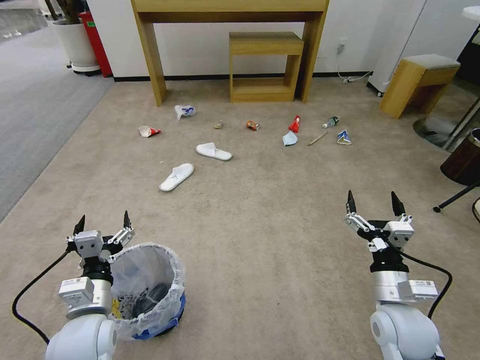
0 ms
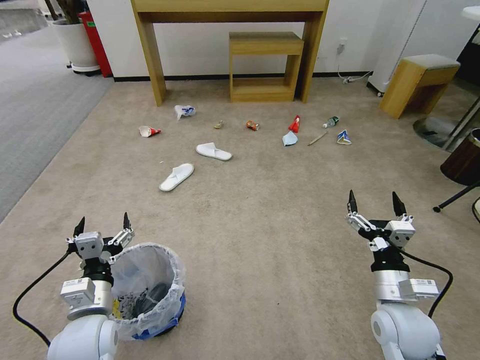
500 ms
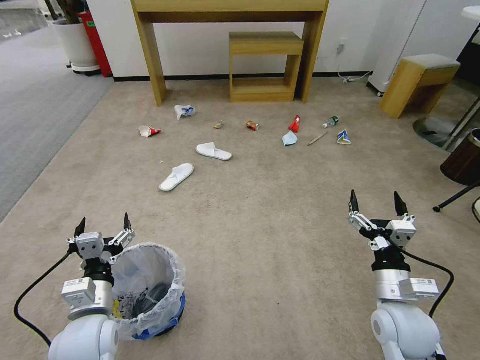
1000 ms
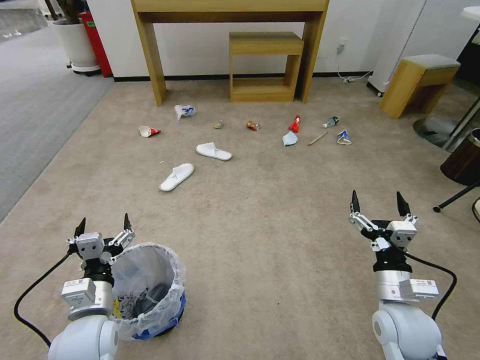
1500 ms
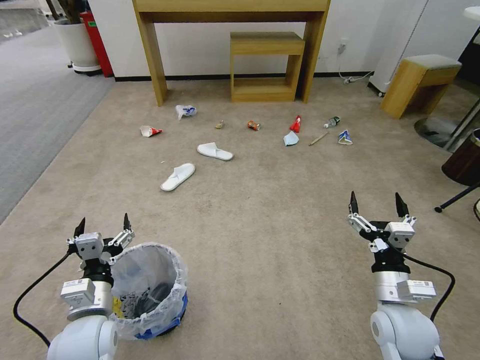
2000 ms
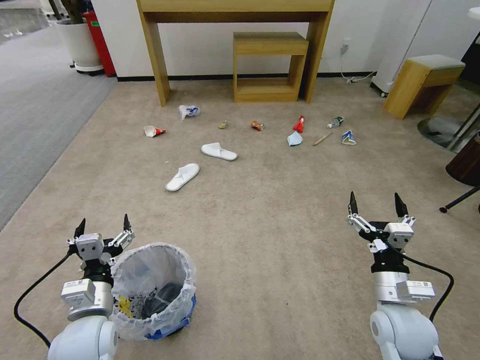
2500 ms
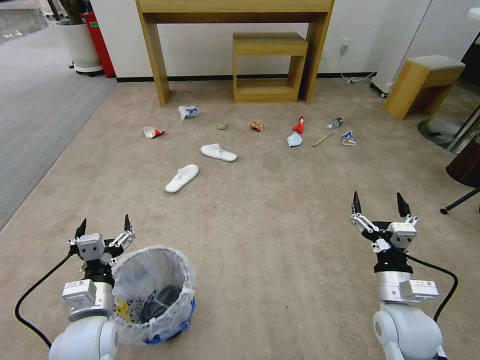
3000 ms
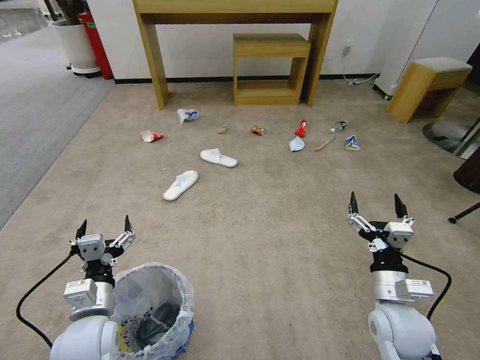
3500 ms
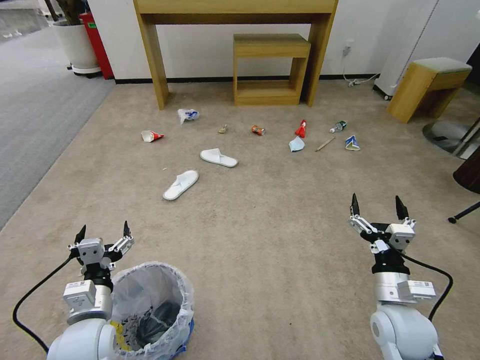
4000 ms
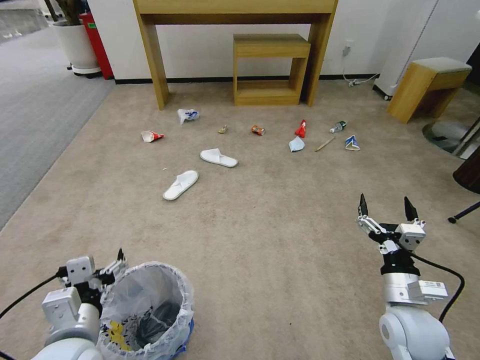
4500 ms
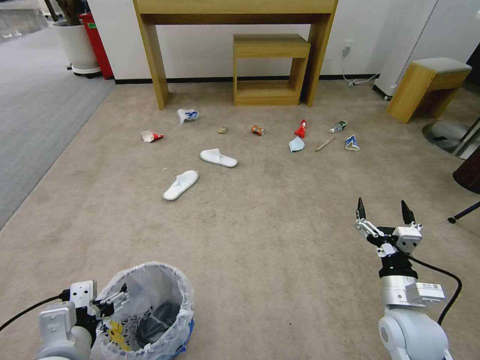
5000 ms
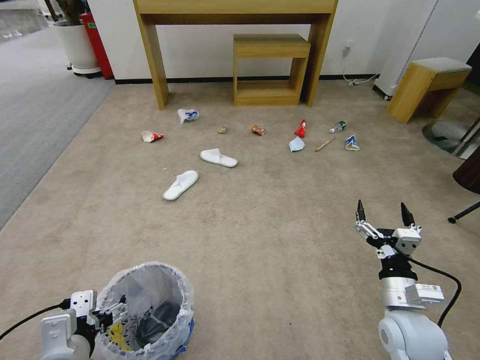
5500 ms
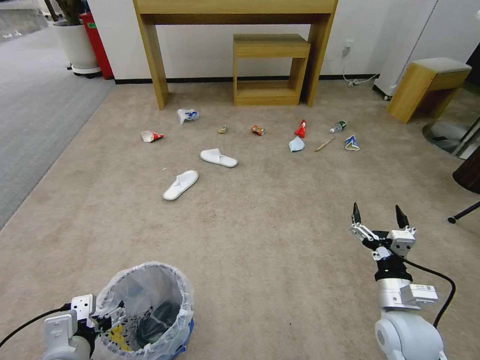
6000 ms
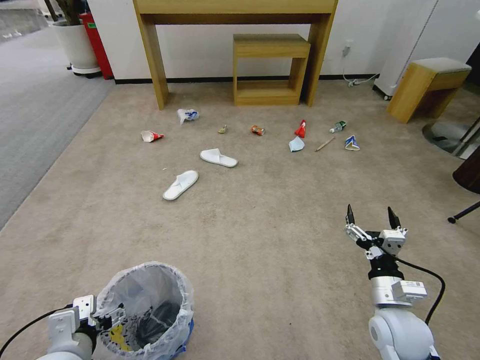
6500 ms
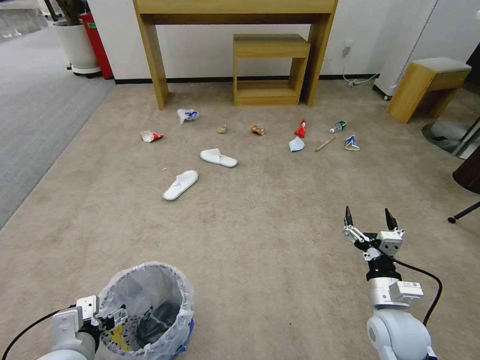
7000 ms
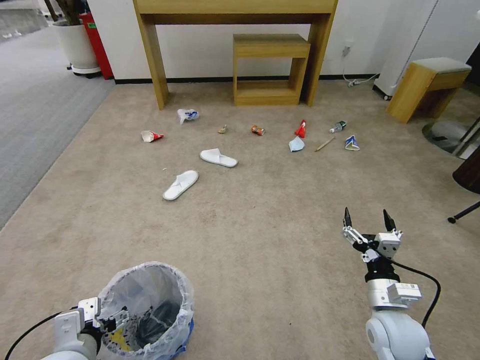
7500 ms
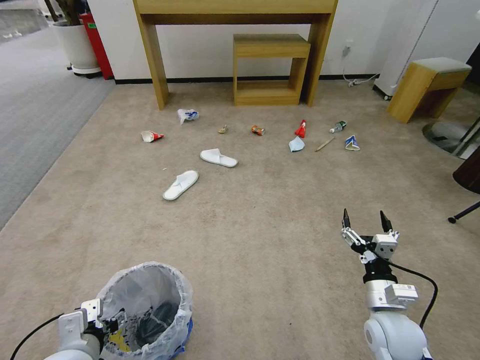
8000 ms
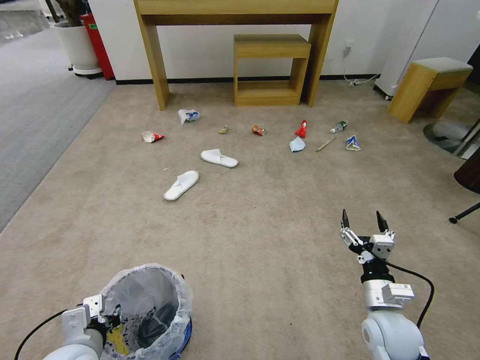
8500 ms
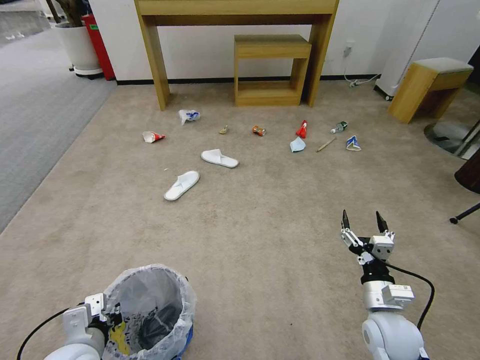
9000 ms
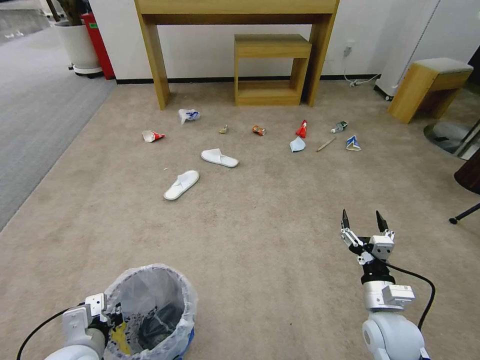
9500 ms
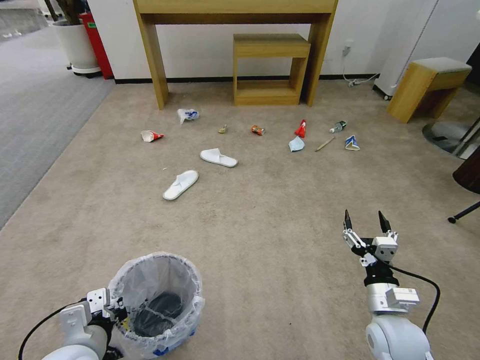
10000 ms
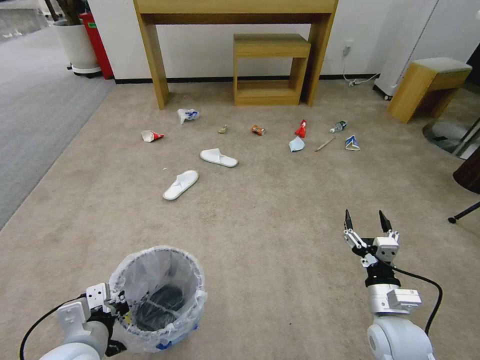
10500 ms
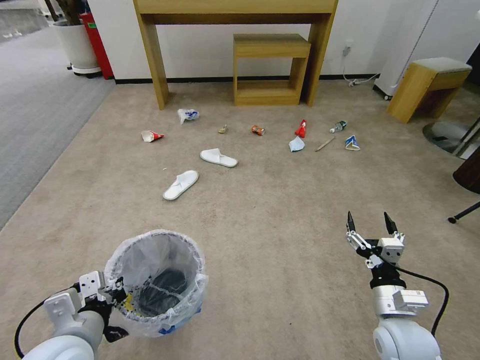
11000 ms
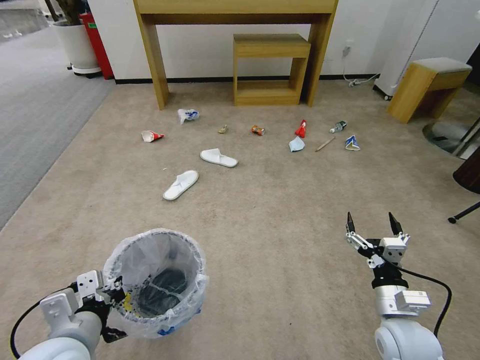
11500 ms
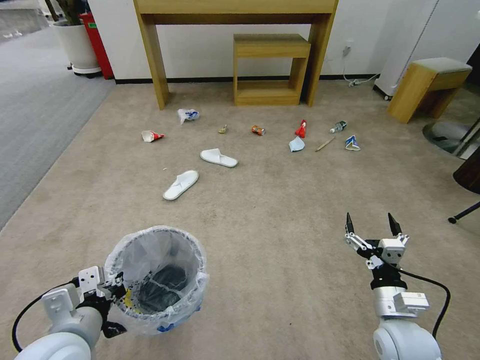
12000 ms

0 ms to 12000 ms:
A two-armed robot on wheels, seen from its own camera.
Task of the whole recording: Pick up the trash bin and place the garbage on the floor into it.
2000 ms to 4000 ms: The grippers stay close to where they were, moving slightly.
4000 ms to 6000 ms: The left gripper goes approximately 5 cm backward.
6000 ms to 8000 ms: The grippers move only a little.
8000 ms to 10000 ms: The left gripper closes.
10000 ms to 12000 ms: The left gripper travels upward by some 5 cm.

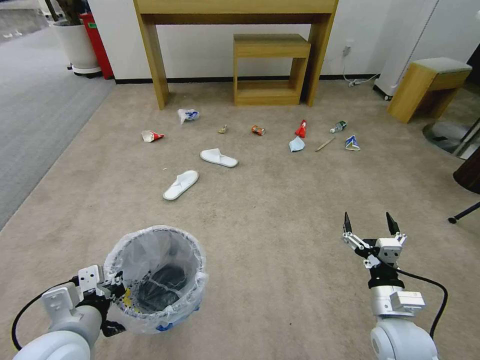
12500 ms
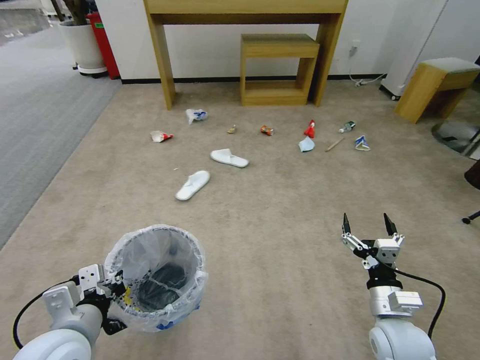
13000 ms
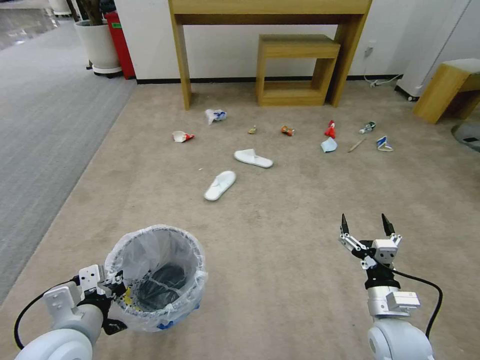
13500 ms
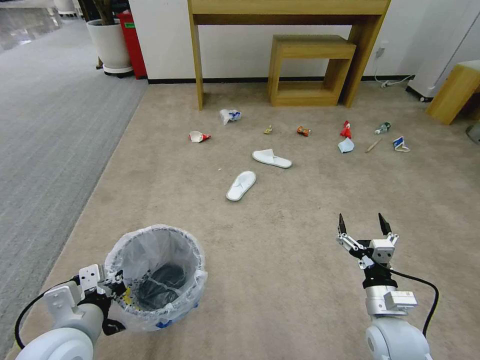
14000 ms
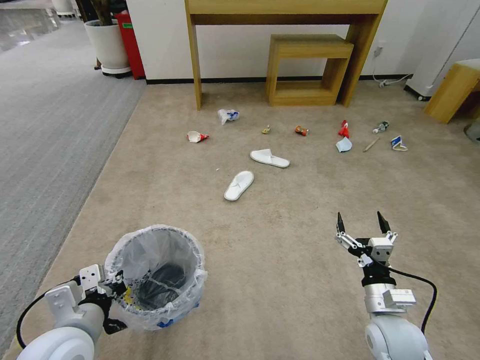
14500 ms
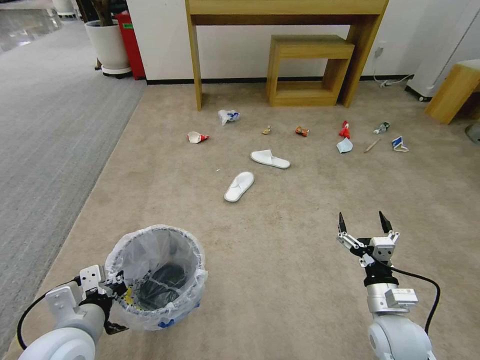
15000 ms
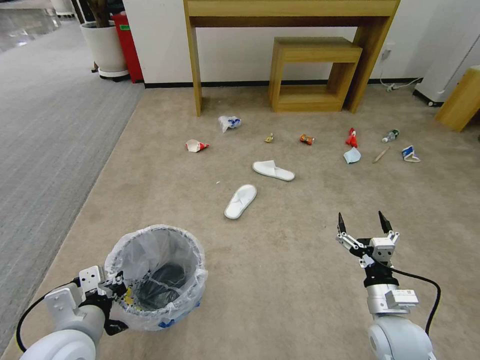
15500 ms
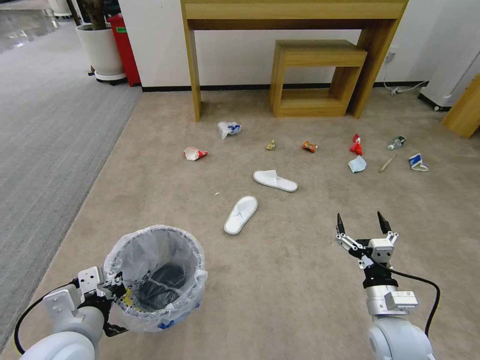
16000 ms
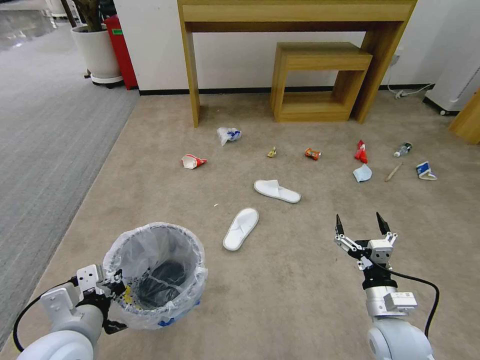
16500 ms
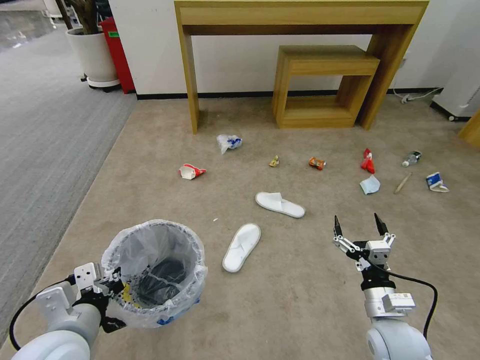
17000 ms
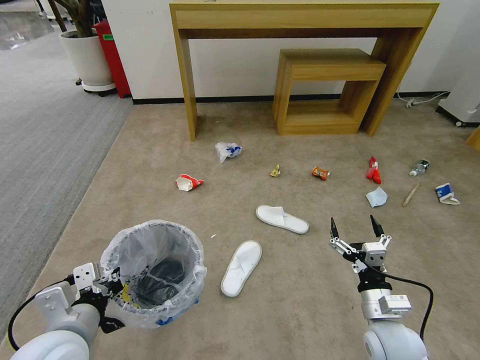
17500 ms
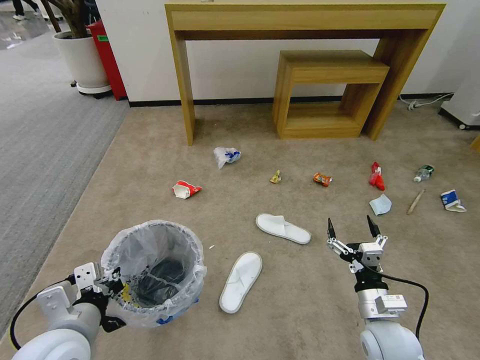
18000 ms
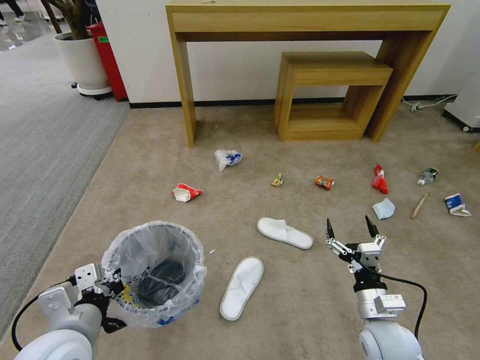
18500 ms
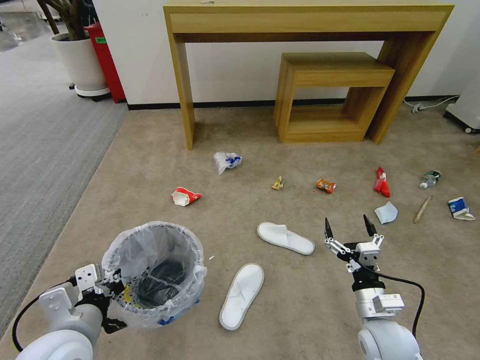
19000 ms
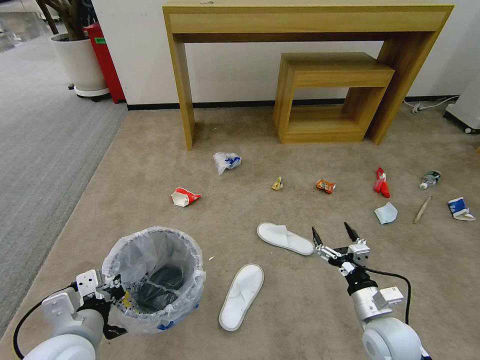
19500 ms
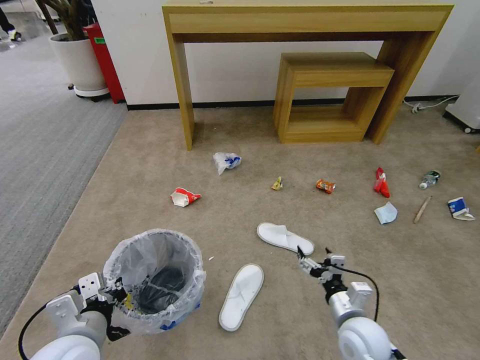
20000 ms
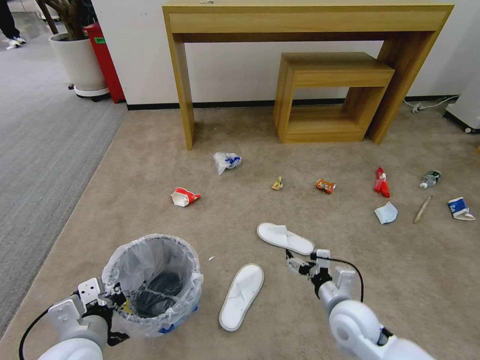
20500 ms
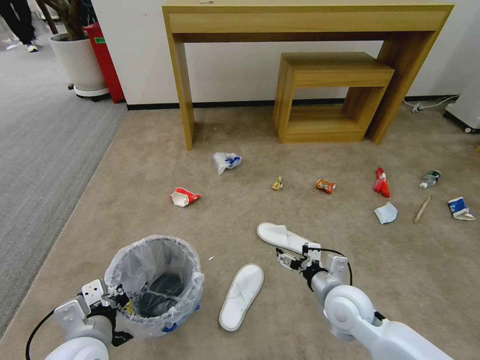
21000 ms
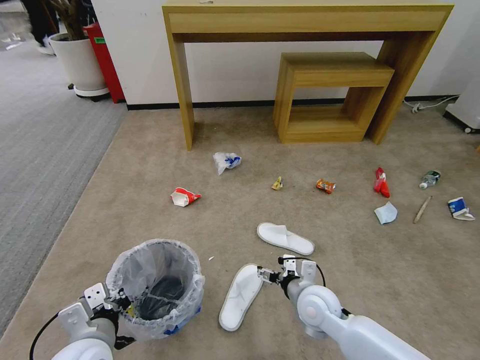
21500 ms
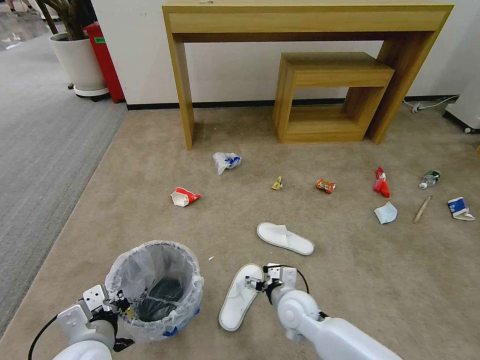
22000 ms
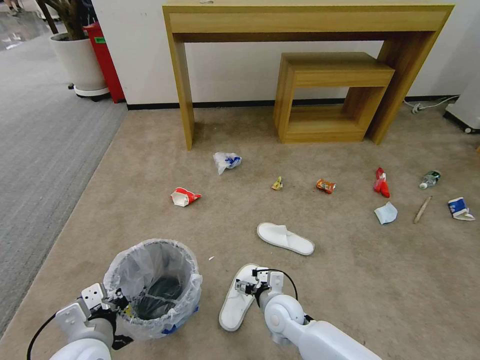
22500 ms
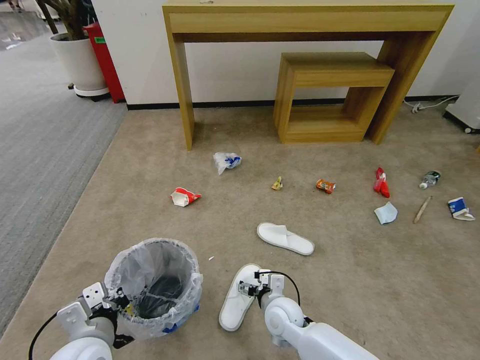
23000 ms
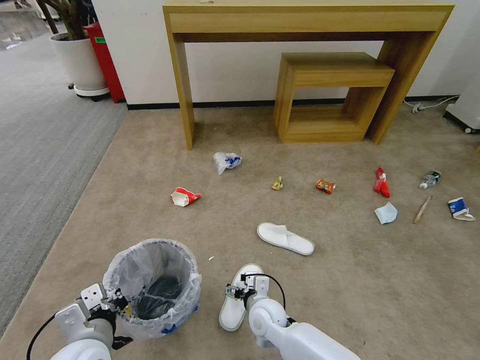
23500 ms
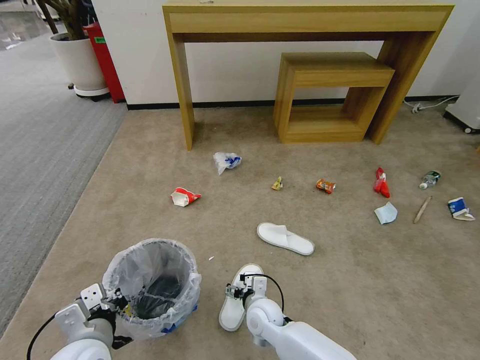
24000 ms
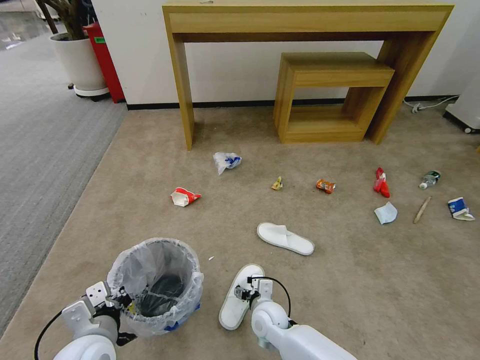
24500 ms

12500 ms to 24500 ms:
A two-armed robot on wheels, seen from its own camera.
Task of the whole recording: Pick up the trash bin and place the garbage on the floor into it.
18500 ms to 20500 ms: The right gripper moves to the left, approximately 5 cm.
20500 ms to 22500 ms: The right gripper moves to the left and downward, some 15 cm.
22500 ms to 24500 ms: The right gripper moves downward, approximately 5 cm.

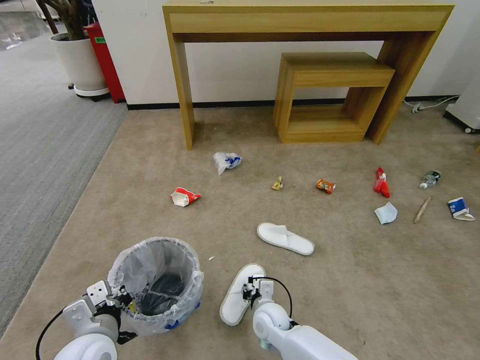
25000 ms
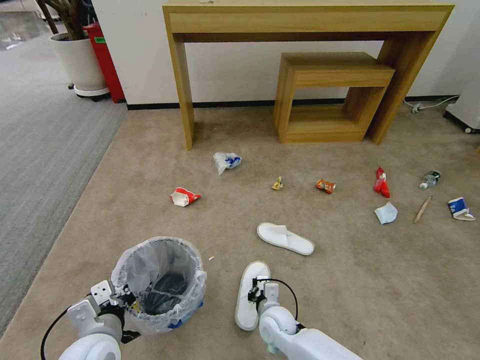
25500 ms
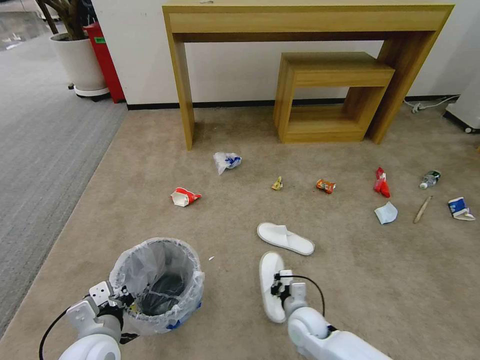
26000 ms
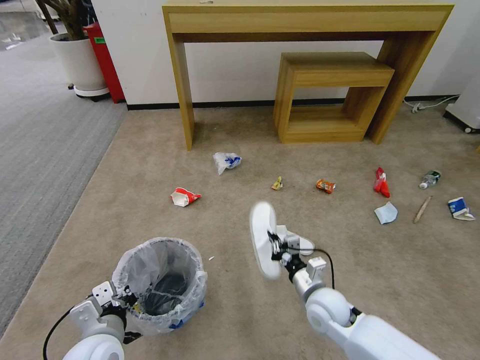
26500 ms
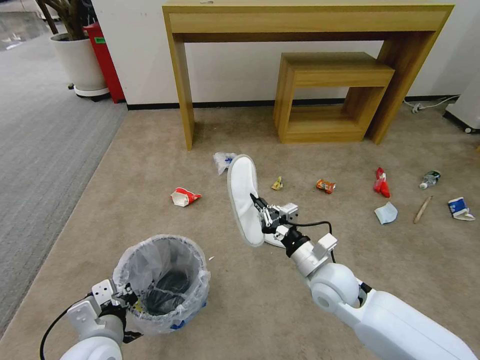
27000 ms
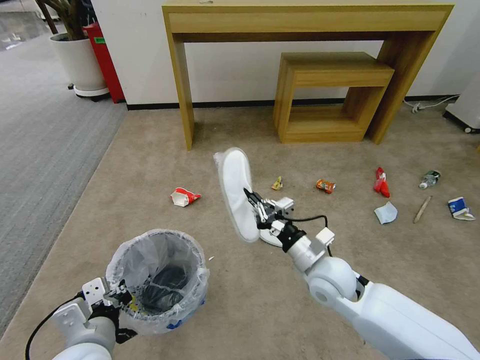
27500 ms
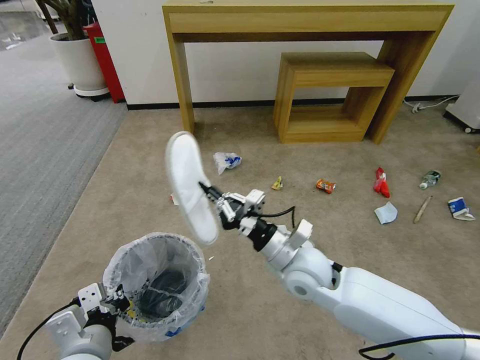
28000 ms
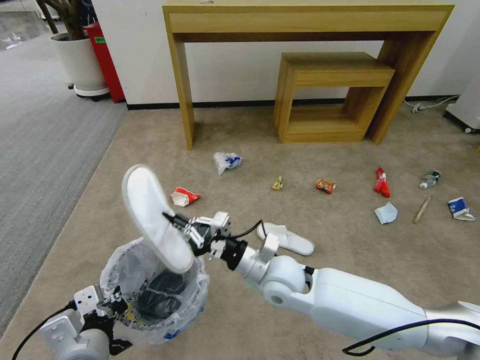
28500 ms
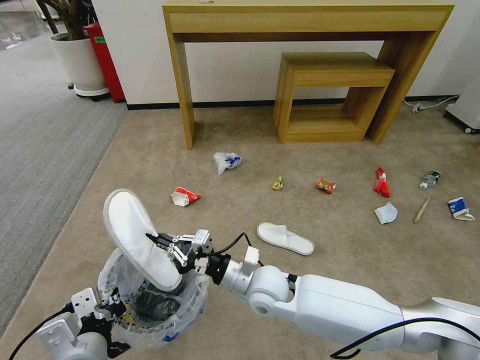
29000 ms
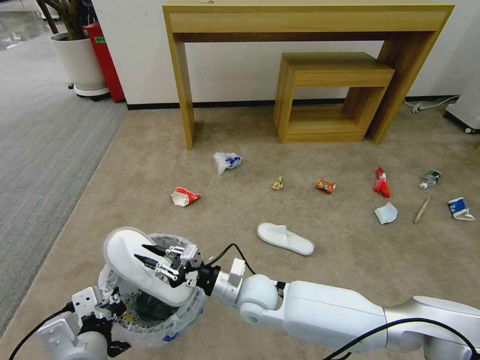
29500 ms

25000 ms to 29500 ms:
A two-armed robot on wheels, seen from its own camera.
Task of the whole recording: Pick up the trash bin and place the garbage on the floor into it.
25000 ms to 27000 ms: The right gripper travels upward and to the right by about 20 cm, and closes.
27000 ms to 29500 ms: The right gripper moves to the left, about 15 cm. The left gripper moves upward, roughly 5 cm.
